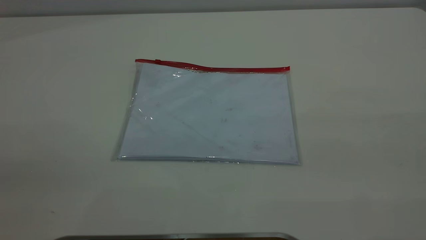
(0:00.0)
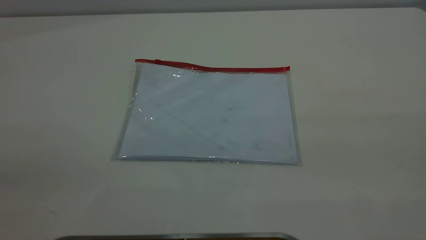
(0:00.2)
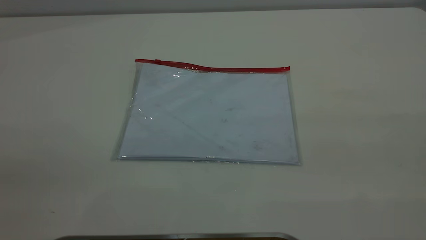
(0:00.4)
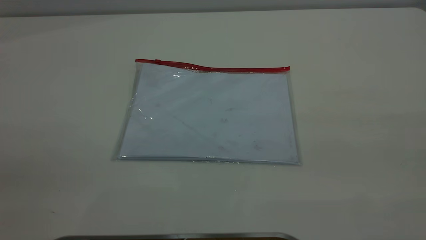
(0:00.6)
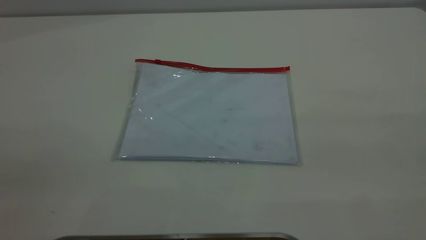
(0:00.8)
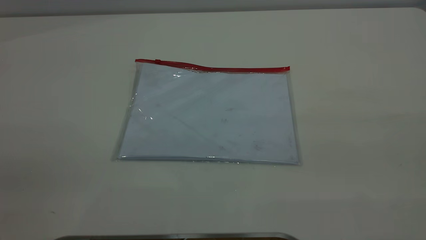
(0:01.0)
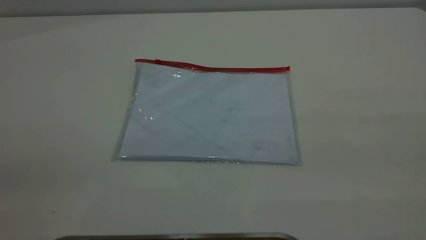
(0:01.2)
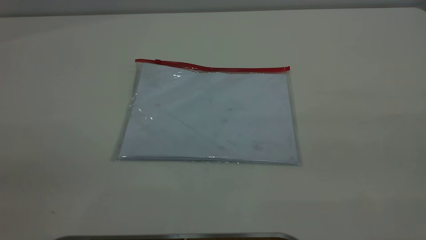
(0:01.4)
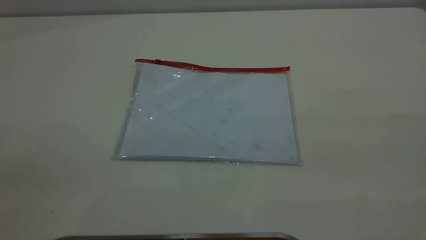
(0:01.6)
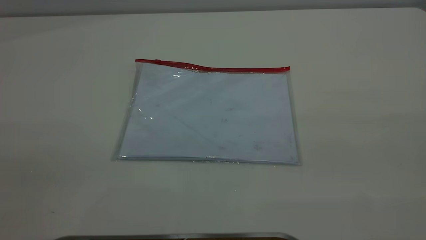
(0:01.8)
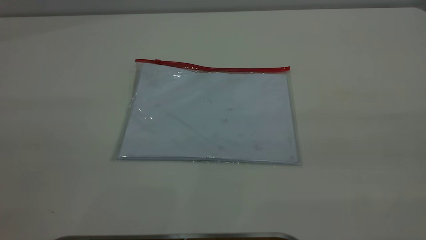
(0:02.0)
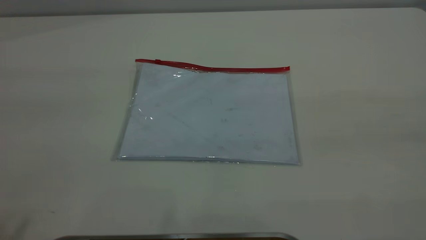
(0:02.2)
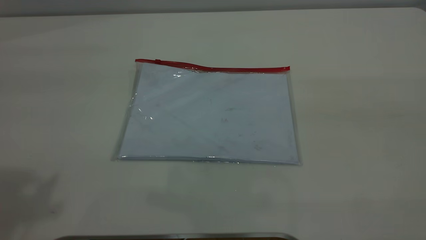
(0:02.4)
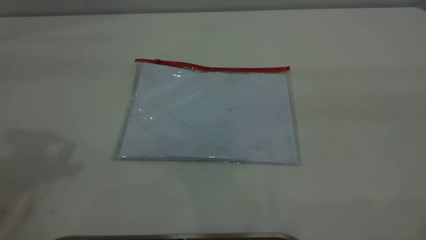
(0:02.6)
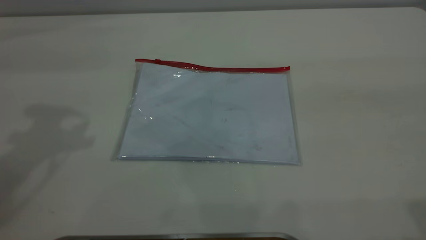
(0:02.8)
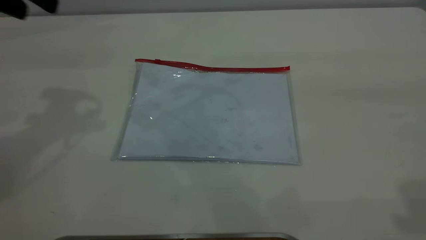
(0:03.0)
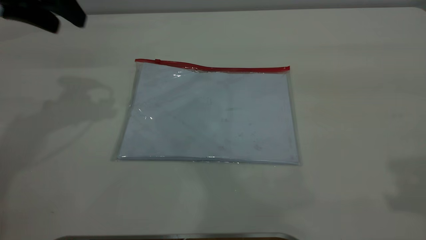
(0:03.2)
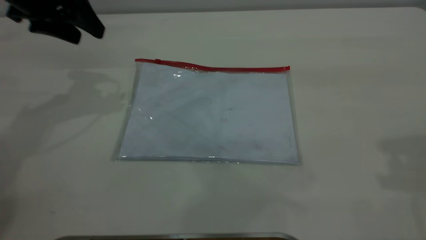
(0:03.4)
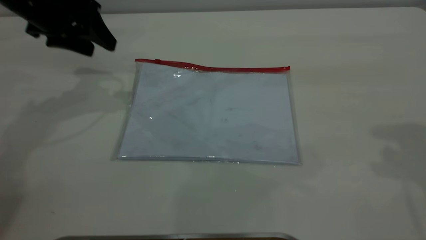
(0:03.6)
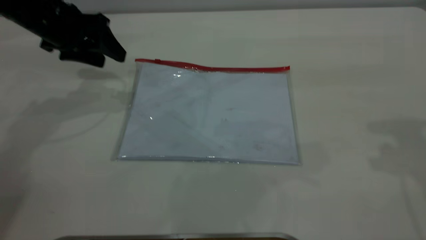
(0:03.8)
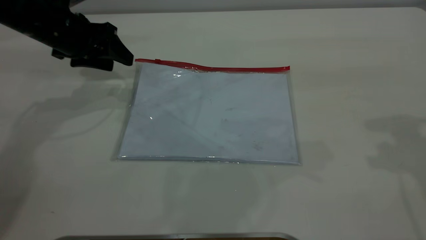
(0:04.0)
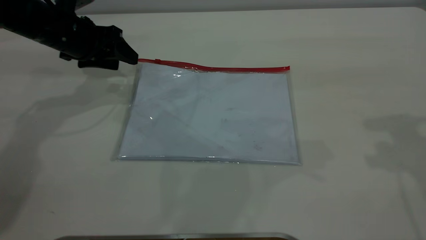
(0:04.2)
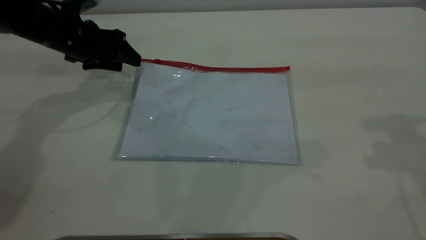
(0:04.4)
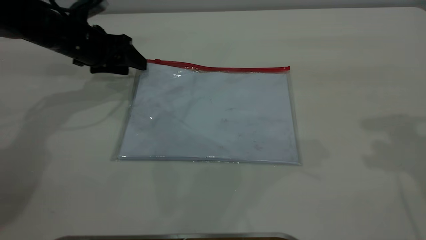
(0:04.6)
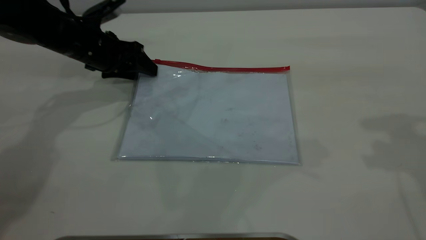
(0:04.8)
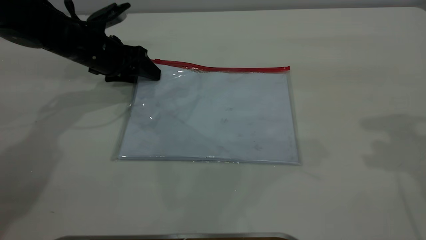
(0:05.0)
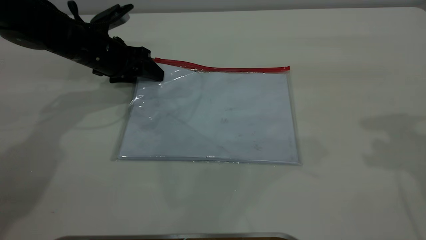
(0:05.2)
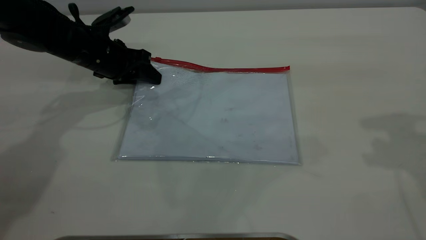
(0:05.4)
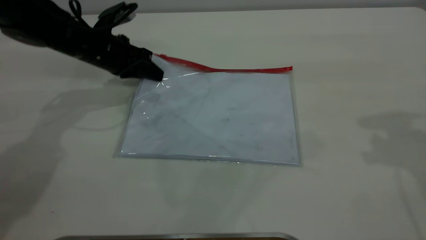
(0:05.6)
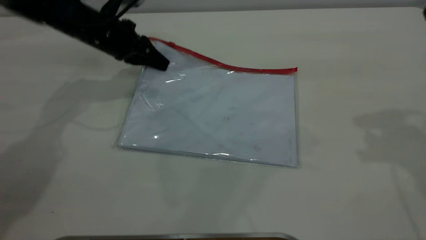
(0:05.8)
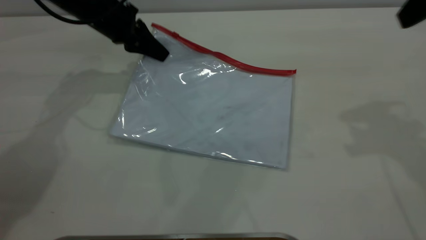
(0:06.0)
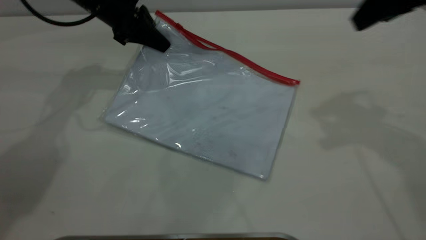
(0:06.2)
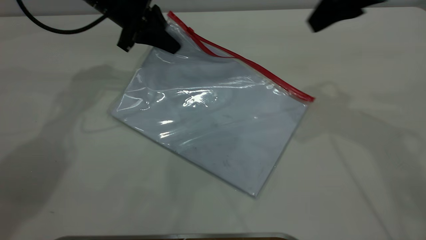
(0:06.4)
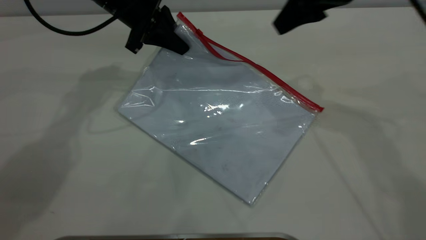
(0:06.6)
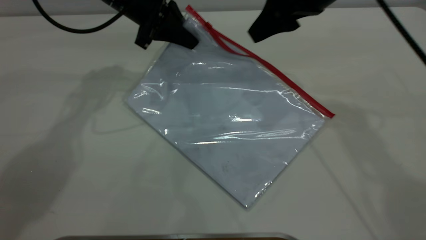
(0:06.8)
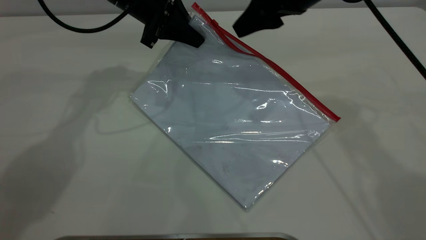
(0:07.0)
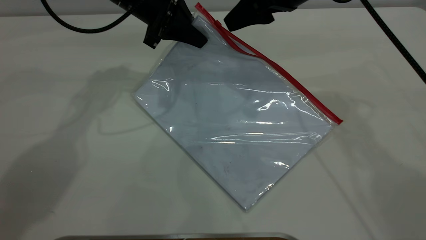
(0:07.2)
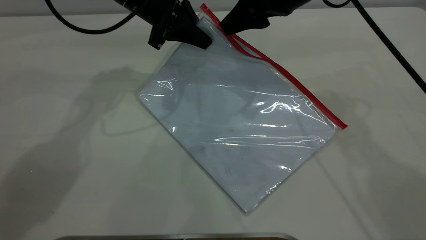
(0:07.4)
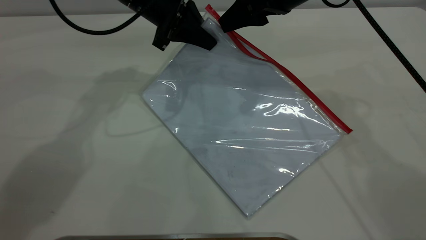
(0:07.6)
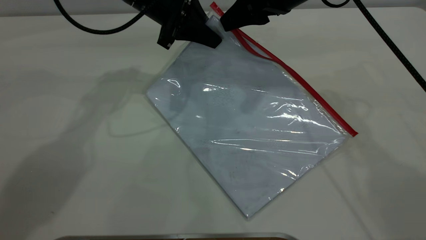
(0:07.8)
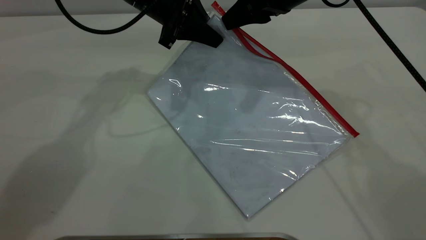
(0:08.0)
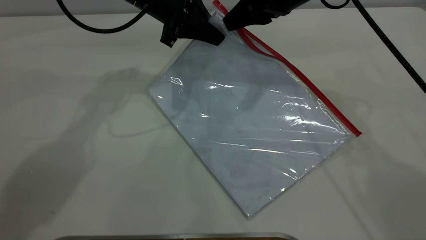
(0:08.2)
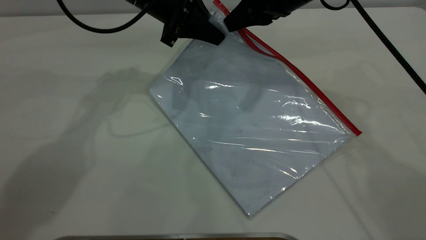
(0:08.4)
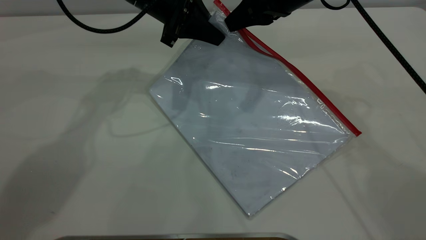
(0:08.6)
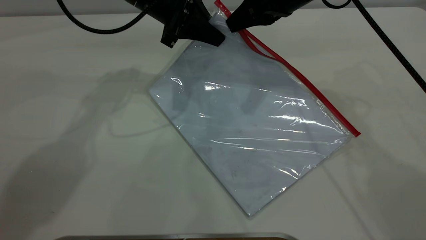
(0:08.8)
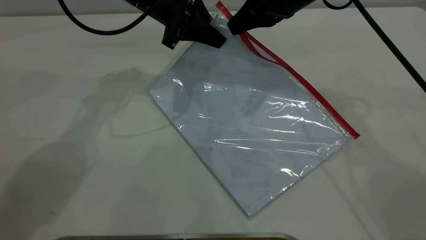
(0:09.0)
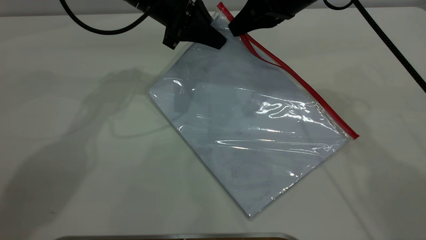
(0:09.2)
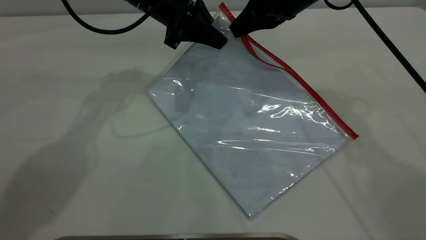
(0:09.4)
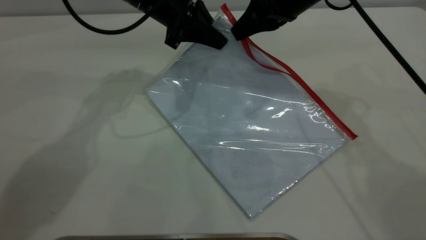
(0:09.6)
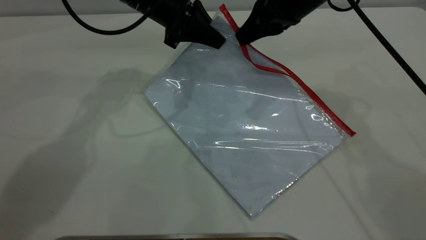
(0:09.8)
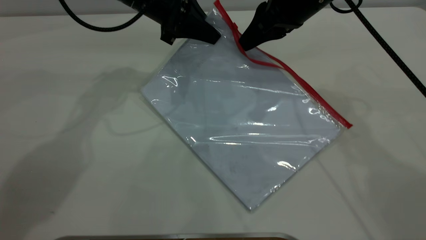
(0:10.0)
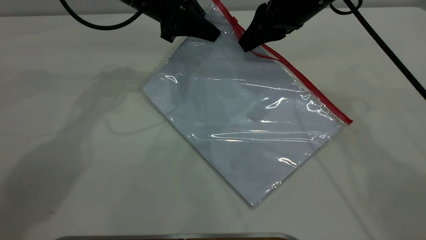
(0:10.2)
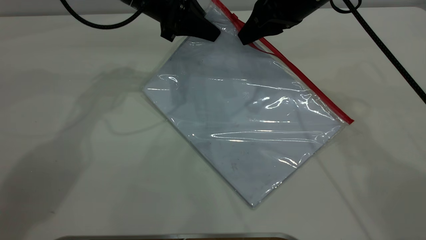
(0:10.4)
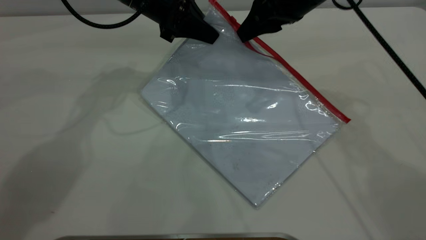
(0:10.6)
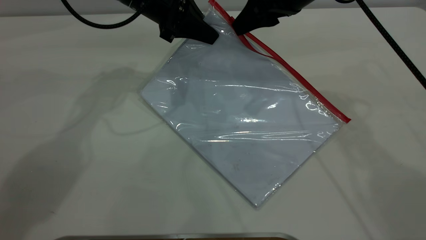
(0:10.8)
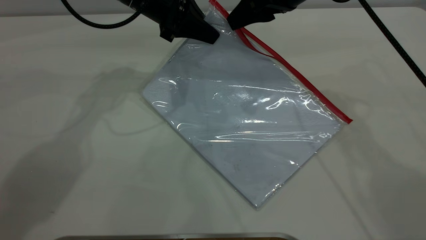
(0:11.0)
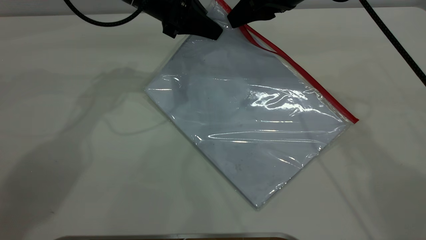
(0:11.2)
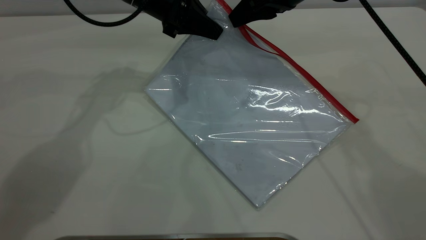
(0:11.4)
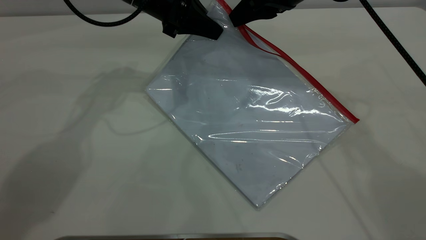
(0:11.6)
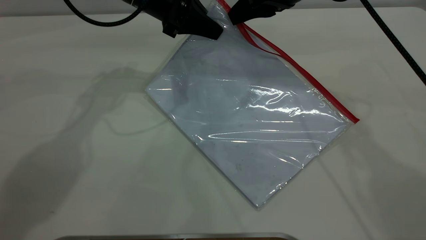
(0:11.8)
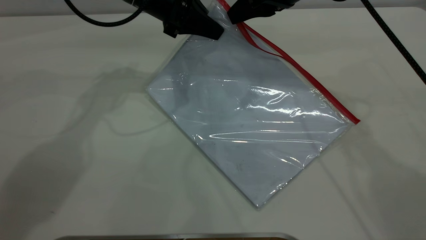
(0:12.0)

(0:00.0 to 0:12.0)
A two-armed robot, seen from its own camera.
Step, 0:00.0 - 0:06.0: Pick up the transparent plastic bag with the left gripper.
0:00.0 - 0:01.6: Both grippers stay put.
0:01.6 - 0:03.0: The left gripper travels forward by approximately 35 cm.
0:03.0 - 0:04.4: The left gripper travels downward and forward by some 20 cm.
0:04.4 - 0:06.0: The left gripper moves to the right, about 5 cm, and closes.
0:06.0 - 0:07.6: The right gripper goes roughly 20 cm to the left, forward and downward. The left gripper is displaced to the right by roughly 10 cm.
0:07.6 - 0:09.0: The right gripper closes its fingers.
0:09.0 - 0:10.4: The right gripper opens up.
0:10.4 - 0:12.0: The grippers move only a little.

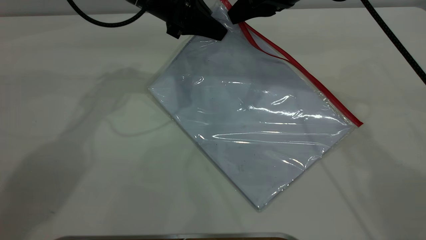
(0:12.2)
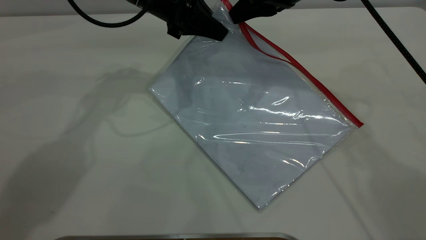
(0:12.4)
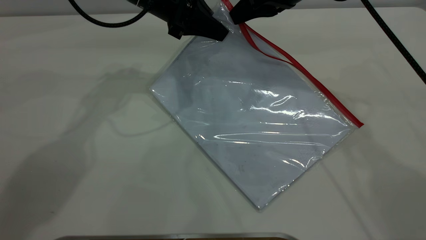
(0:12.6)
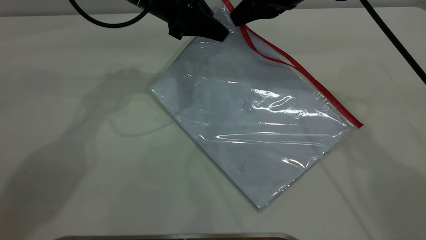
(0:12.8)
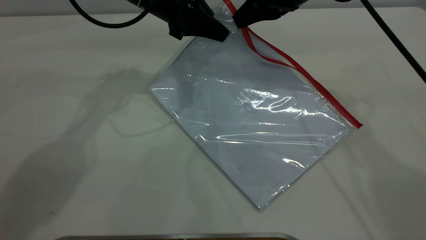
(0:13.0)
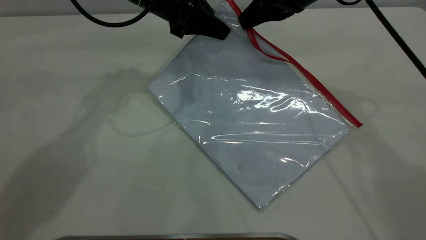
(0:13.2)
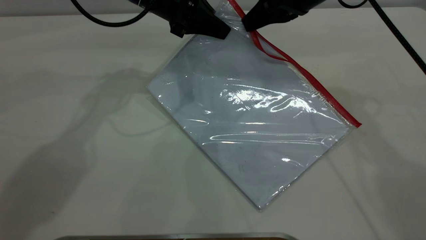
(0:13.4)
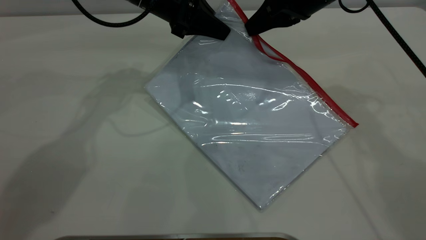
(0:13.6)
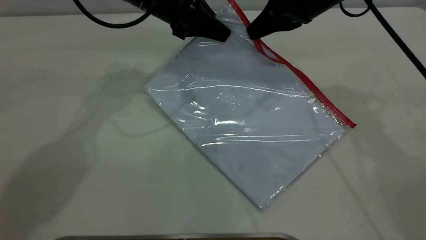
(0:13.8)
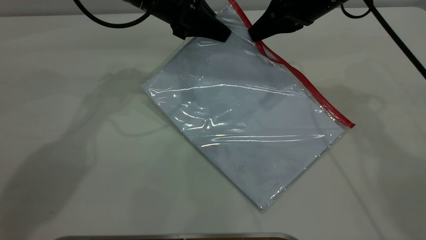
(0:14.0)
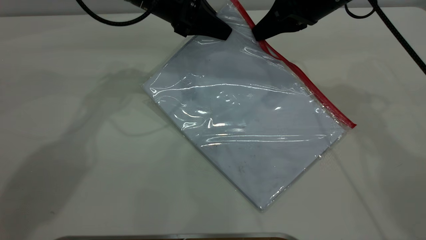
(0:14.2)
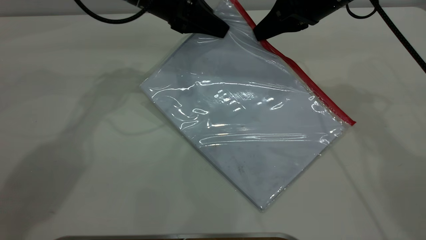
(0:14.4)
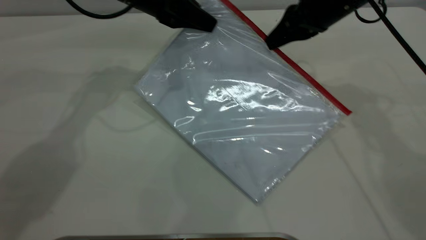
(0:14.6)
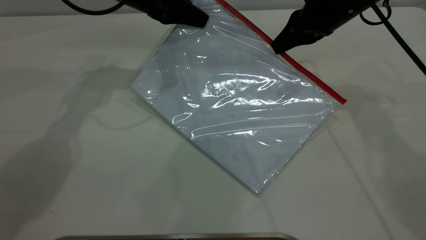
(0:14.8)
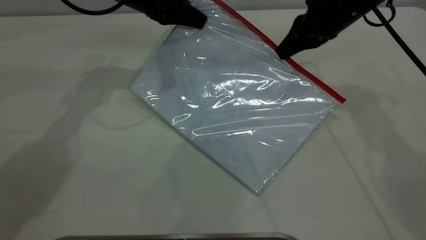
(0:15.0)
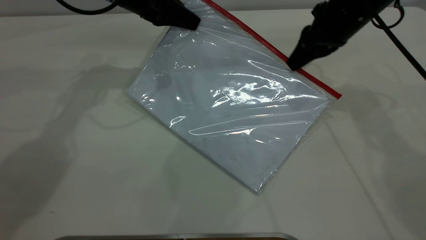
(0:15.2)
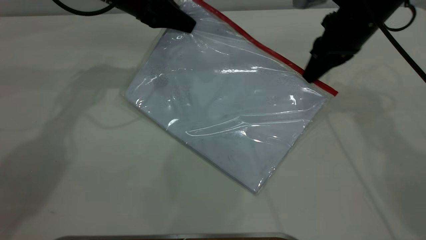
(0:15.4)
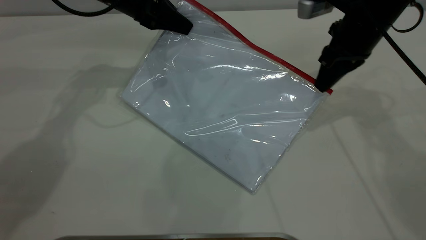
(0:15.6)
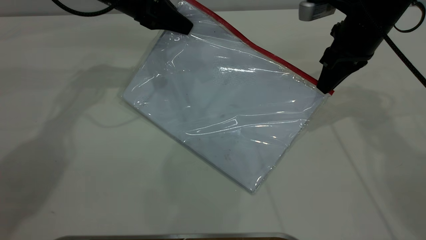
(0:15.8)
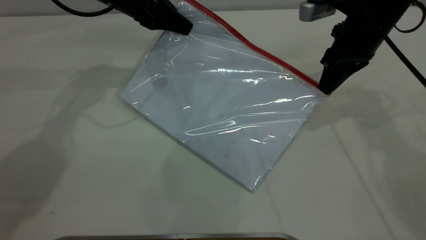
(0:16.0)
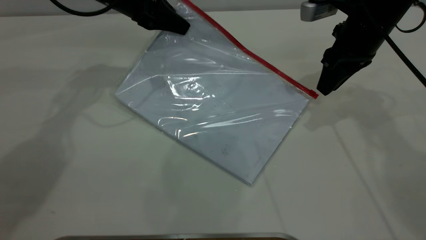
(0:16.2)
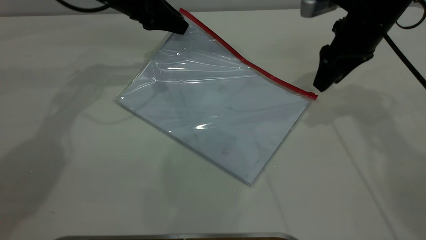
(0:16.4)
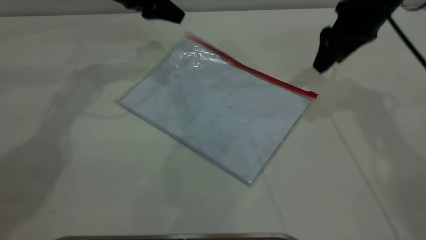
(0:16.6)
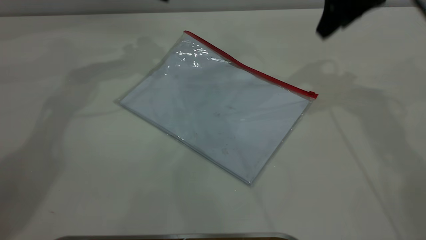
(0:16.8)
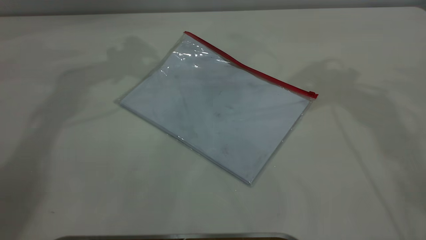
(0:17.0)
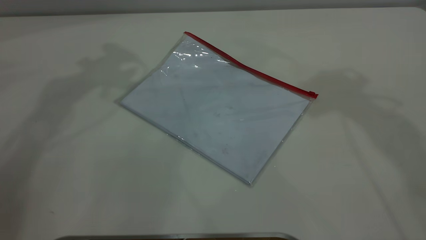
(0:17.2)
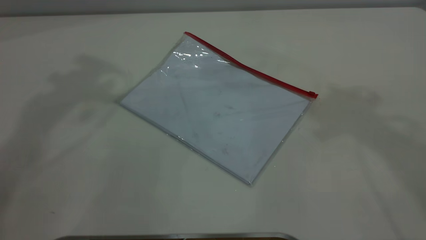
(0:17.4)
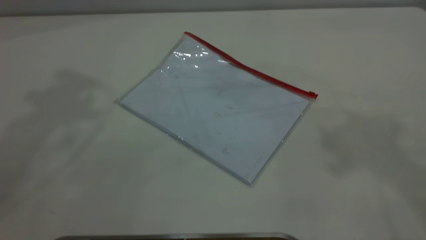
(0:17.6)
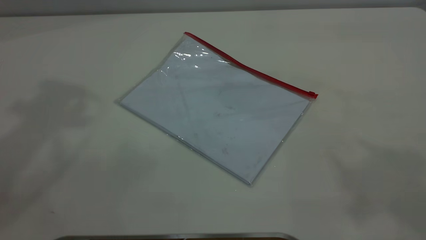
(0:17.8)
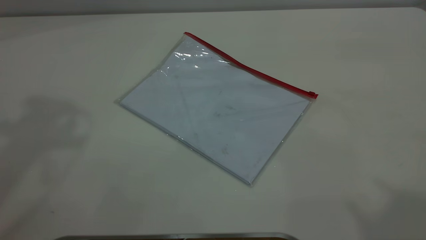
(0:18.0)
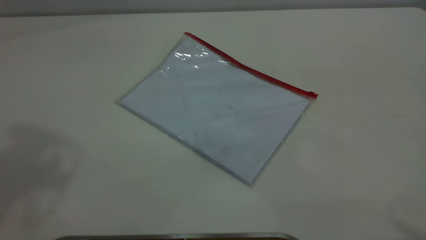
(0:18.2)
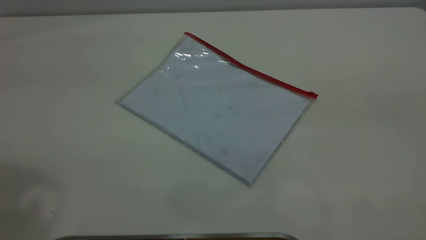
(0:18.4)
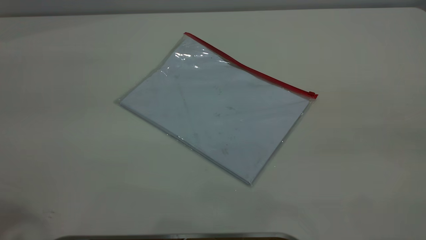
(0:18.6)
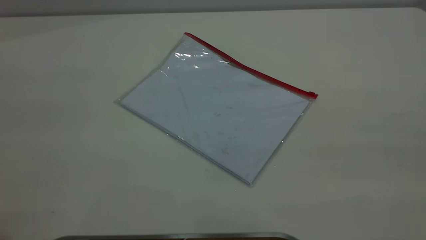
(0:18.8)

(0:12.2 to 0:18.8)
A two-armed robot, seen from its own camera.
Step, 0:12.2 - 0:16.2: Pulling up the zipper on the transparent plastic bag with the right gripper to close it.
Step, 0:16.4 - 0:16.6: Place the transparent plastic bag.
0:12.2 - 0:13.8: The grippers stay close to where they were, moving slightly.
0:13.8 - 0:15.4: The left gripper travels to the left by some 5 cm. The right gripper heads to the right, covering some 5 cm.
0:15.4 - 0:17.2: The grippers both shift upward by approximately 25 cm. The left gripper opens up, while the right gripper opens its fingers.
